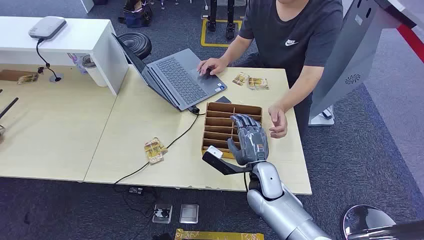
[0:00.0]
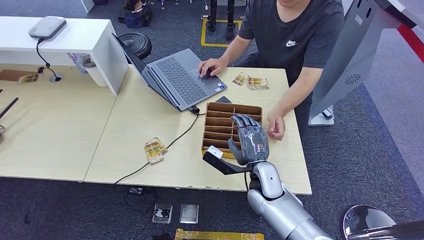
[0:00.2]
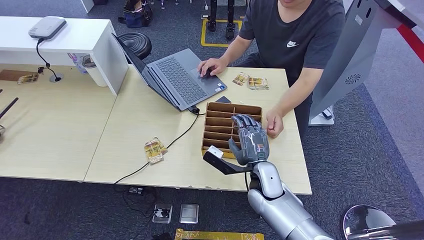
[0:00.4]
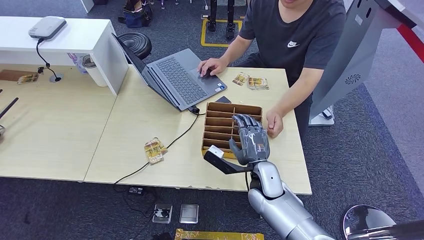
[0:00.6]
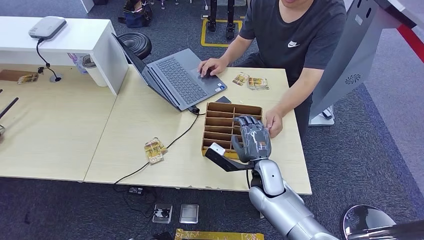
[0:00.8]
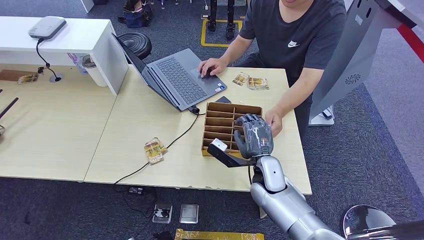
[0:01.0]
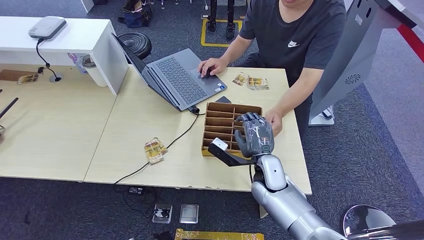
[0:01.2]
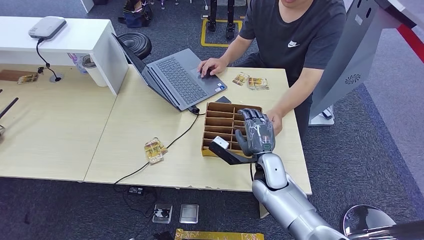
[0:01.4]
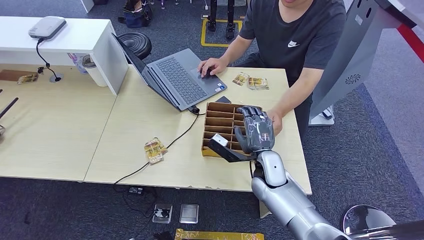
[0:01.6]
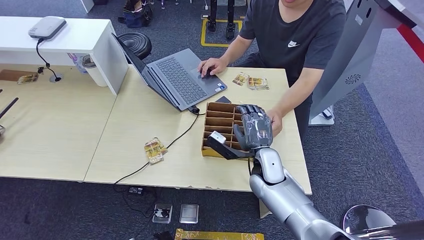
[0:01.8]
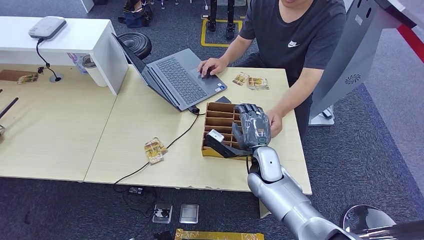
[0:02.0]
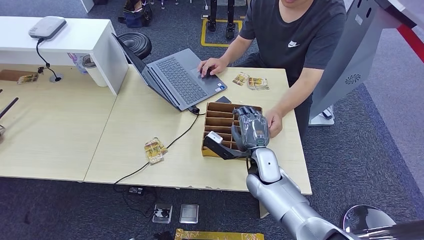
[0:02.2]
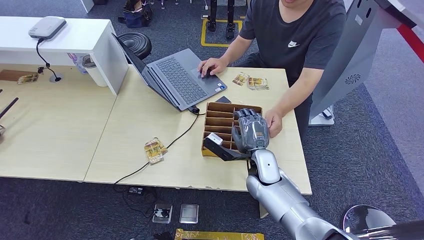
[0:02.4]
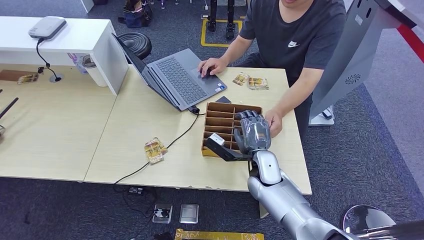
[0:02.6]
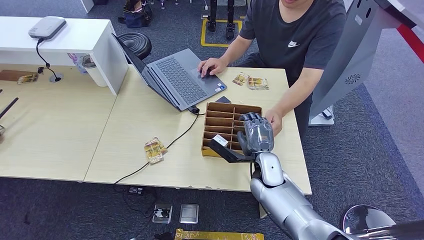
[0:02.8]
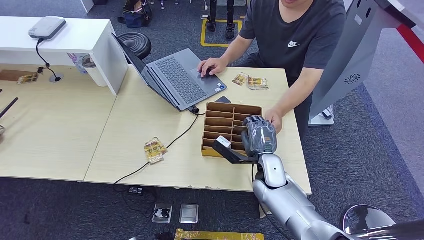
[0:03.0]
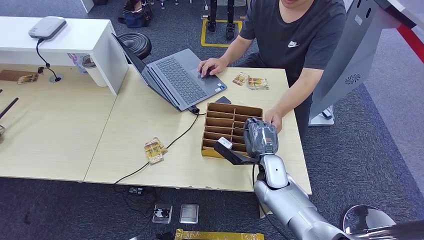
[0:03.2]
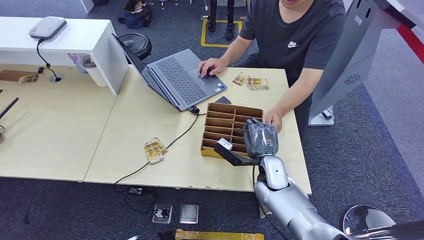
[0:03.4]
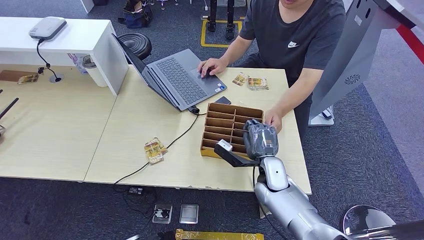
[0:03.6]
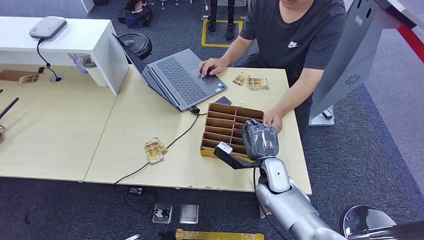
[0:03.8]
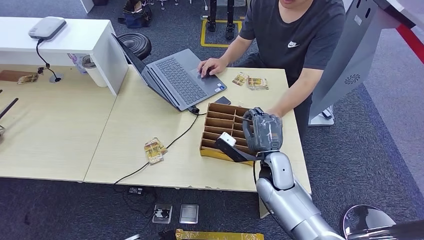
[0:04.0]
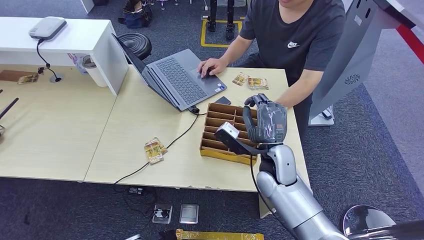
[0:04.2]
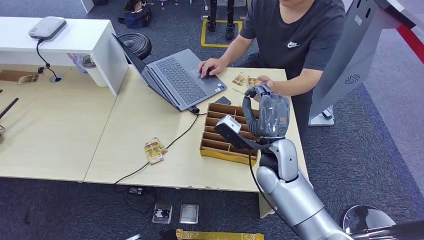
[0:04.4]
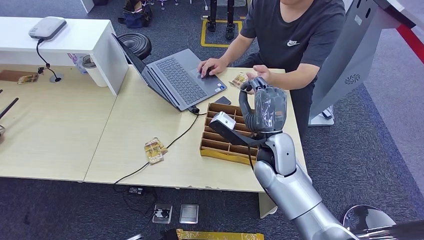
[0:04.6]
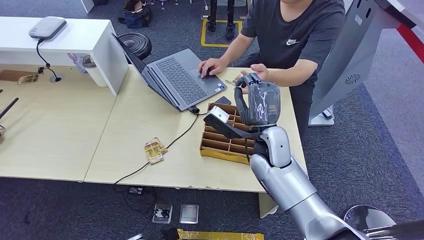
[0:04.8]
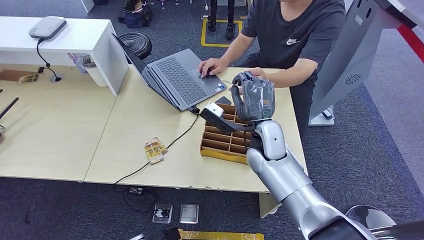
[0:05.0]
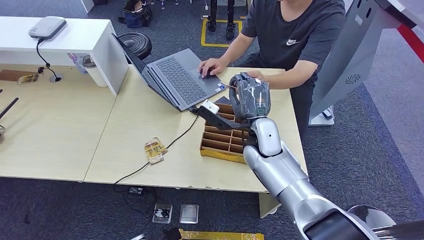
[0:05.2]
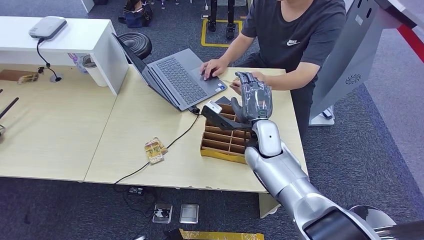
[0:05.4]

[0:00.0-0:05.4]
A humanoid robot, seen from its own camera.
Step, 0:00.0 to 0:03.8: Pick up the key card from the card box.
Step, 0:04.0 to 0:05.4: Hand the key card to the target.
0:01.4 to 0:04.0: The hands make only small movements.
0:04.0 to 0:05.4: The right hand travels upward and forward by some 10 cm.
